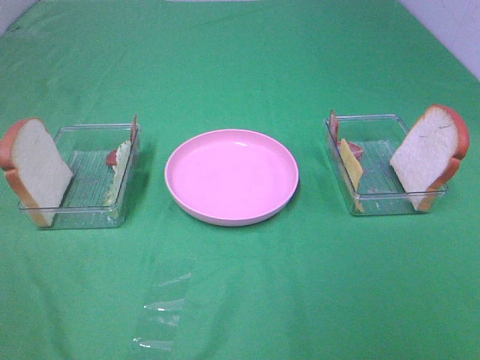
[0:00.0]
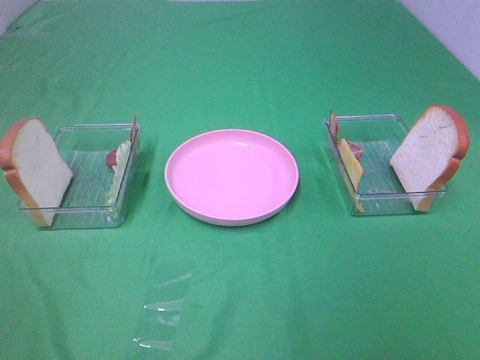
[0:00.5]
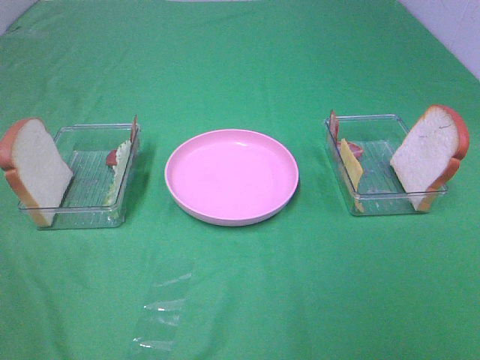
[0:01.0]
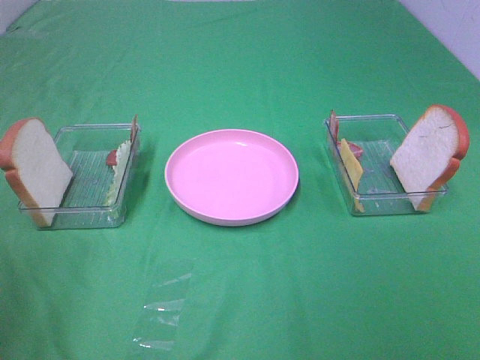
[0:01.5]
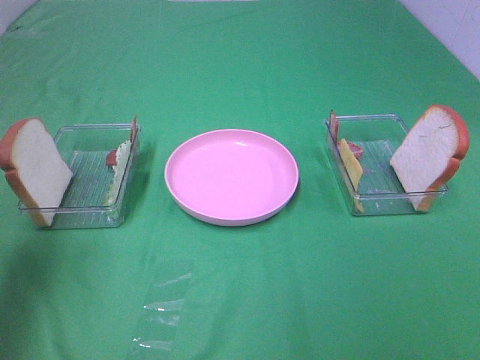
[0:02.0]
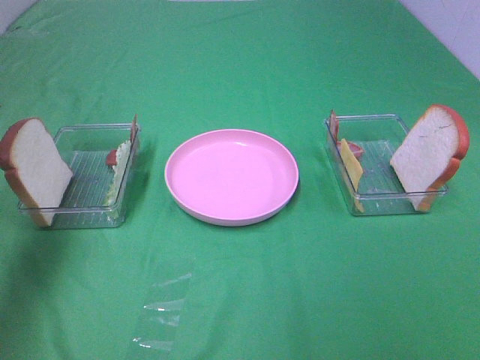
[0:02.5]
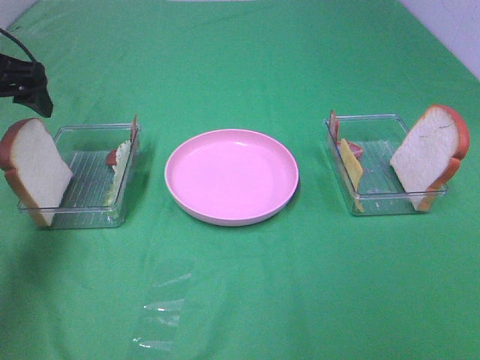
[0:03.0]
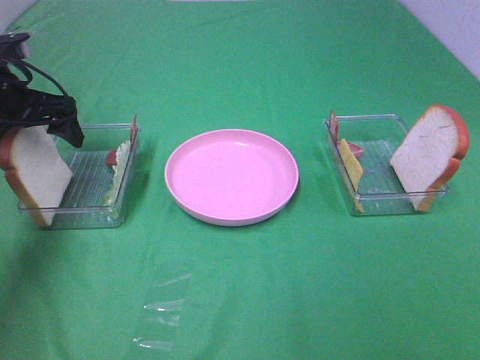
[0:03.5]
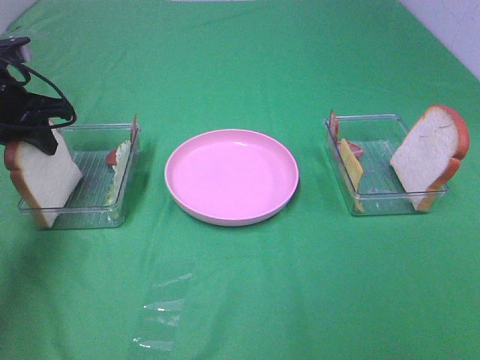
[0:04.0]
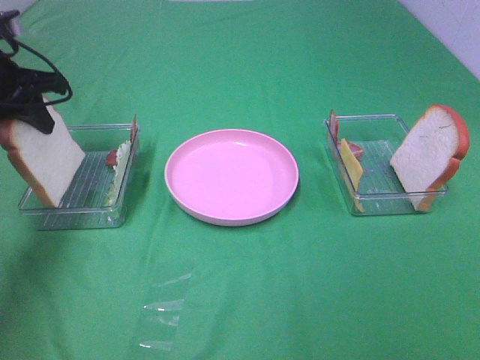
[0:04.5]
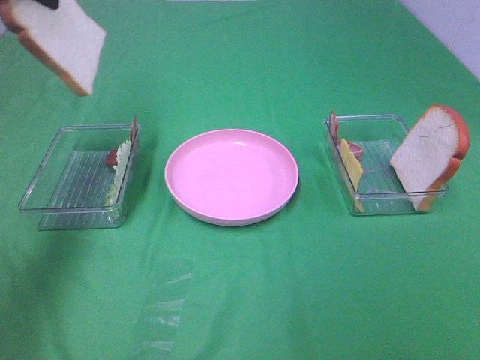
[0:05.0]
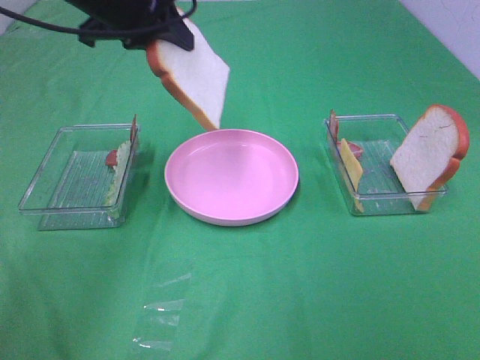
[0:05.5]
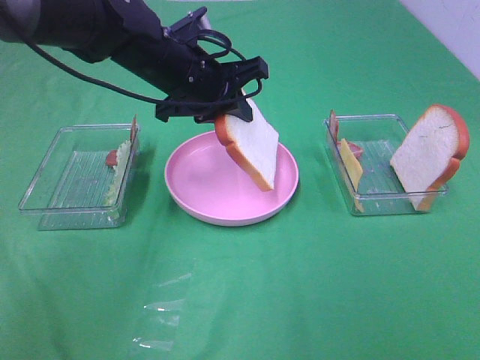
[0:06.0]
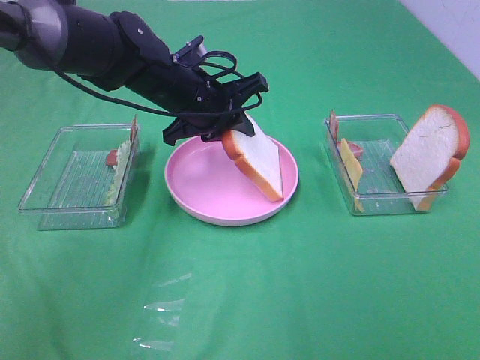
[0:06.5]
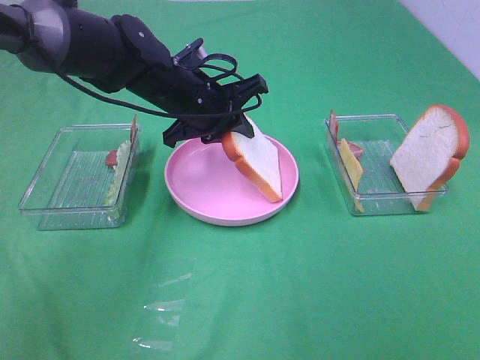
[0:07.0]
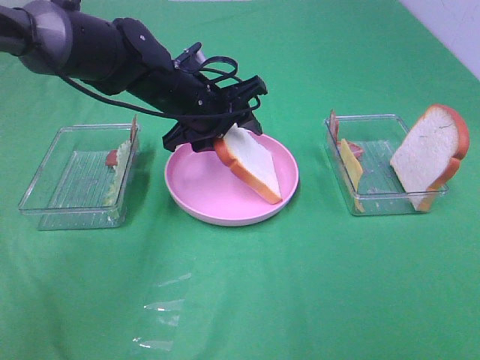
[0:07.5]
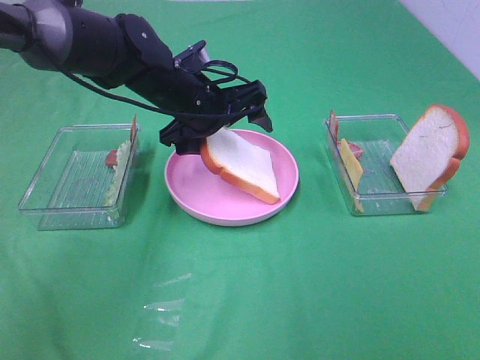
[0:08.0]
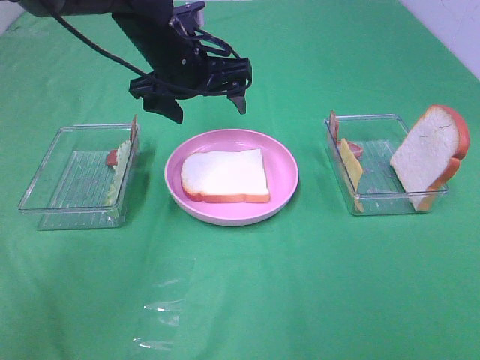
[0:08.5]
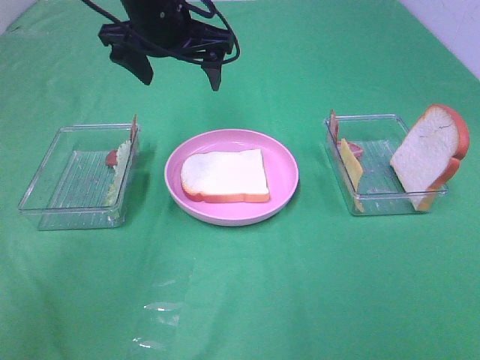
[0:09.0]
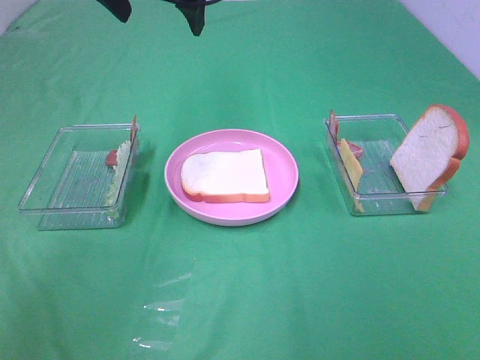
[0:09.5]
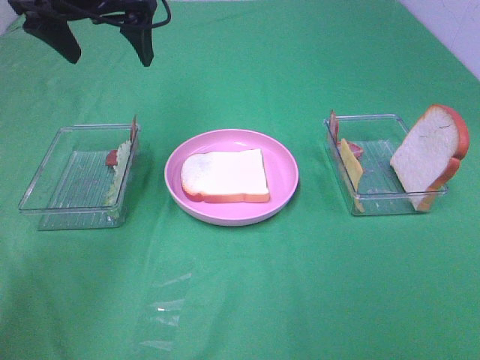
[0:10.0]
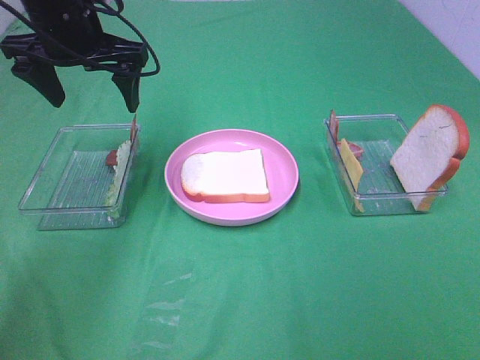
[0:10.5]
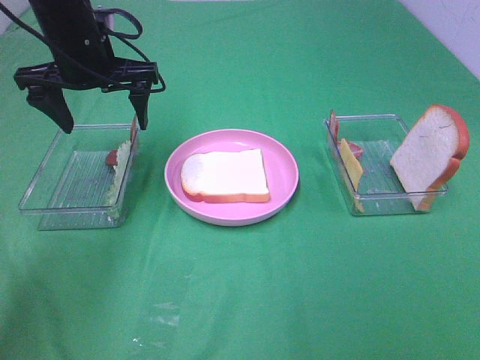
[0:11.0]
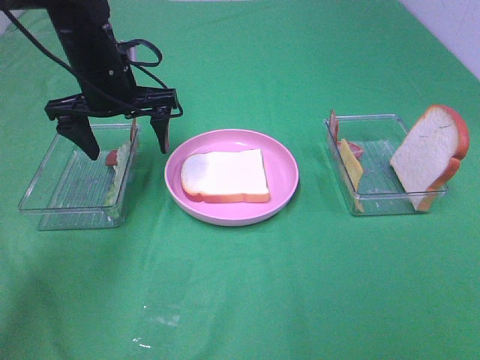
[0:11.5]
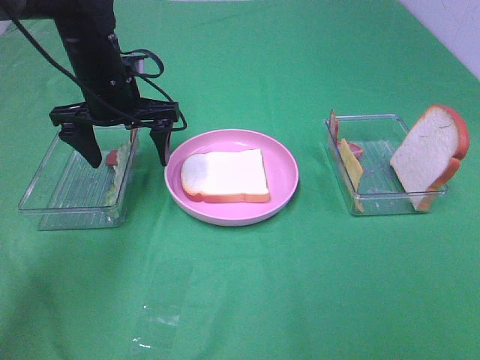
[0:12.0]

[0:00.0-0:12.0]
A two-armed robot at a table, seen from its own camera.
Task of the whole recording: Make sandwiches.
Step, 0:00.0 to 0:04.0: Left hand:grab the bread slice.
Step, 0:04.5 to 0:08.0: Left hand:place the bread slice on the plate.
0:00.0 to 0:02.0: The left gripper goes roughly 20 cm forward.
0:02.0 to 0:04.0: The left gripper heads forward and downward, covering some 25 cm, and closes.
0:04.0 to 0:06.0: The left gripper moves to the right, some 20 cm.
0:06.0 to 0:08.0: The left gripper opens up.
0:08.0 to 0:10.0: The left gripper goes some 20 cm upward and to the left.
0:10.0 to 0:12.0: The left gripper travels downward by some 15 cm.

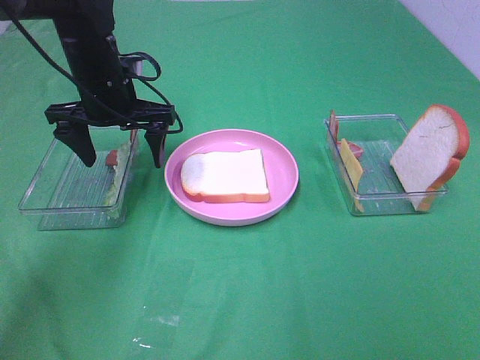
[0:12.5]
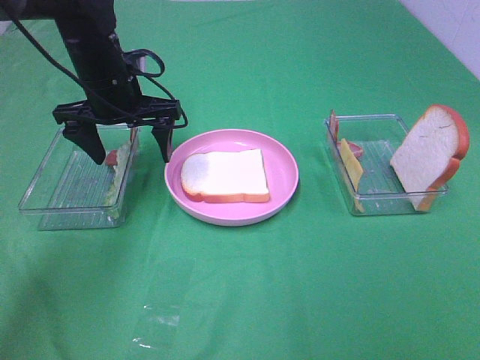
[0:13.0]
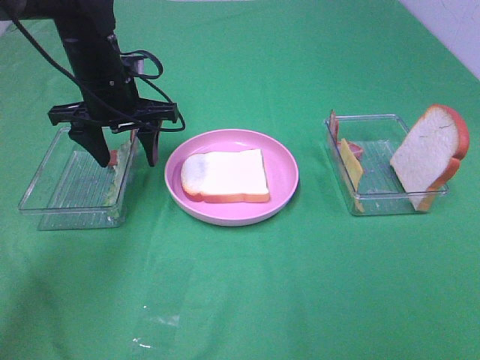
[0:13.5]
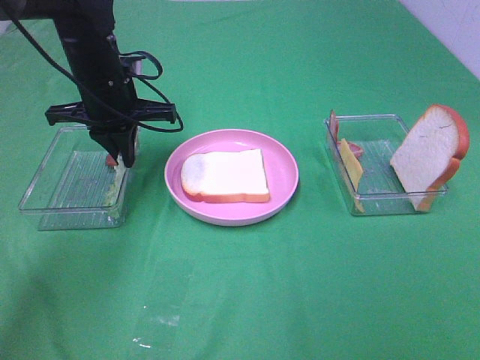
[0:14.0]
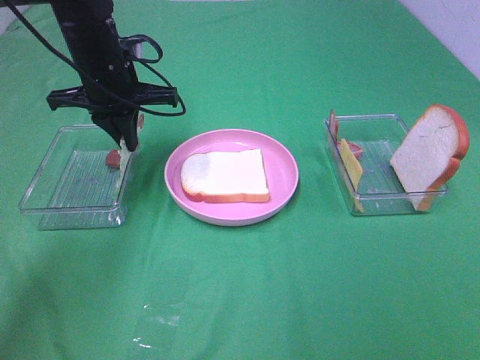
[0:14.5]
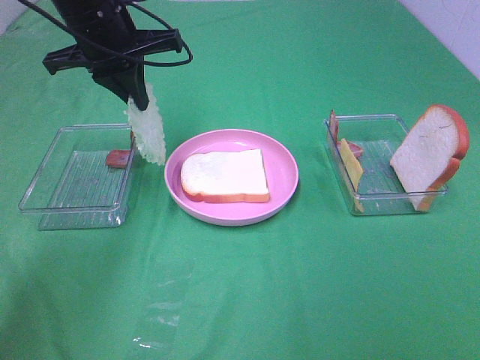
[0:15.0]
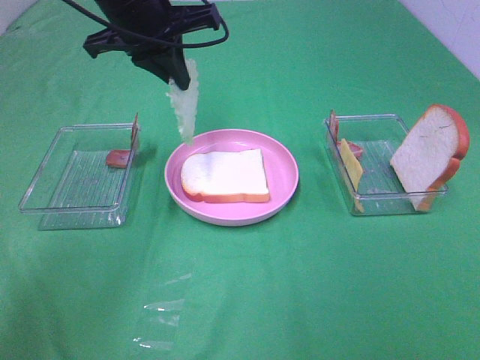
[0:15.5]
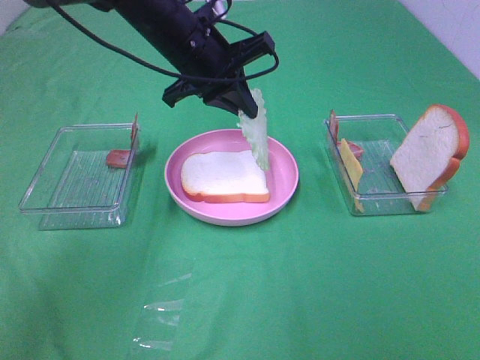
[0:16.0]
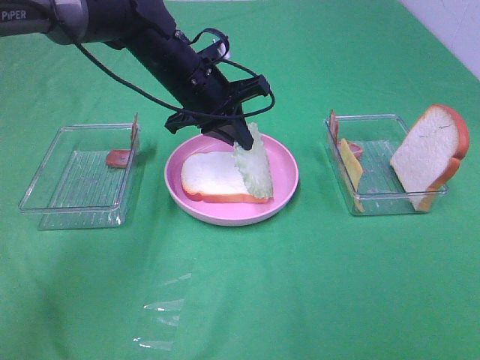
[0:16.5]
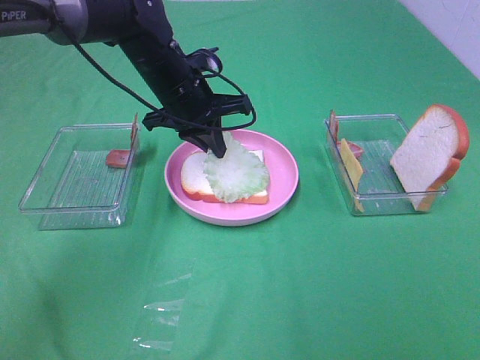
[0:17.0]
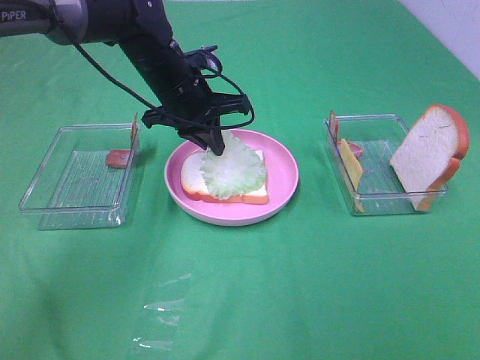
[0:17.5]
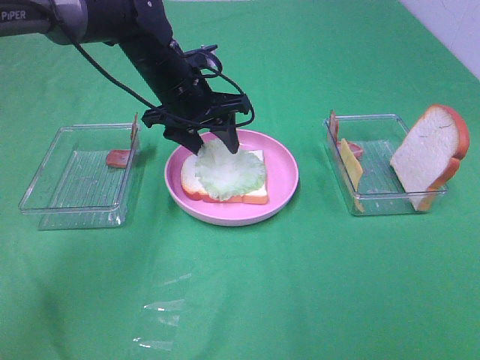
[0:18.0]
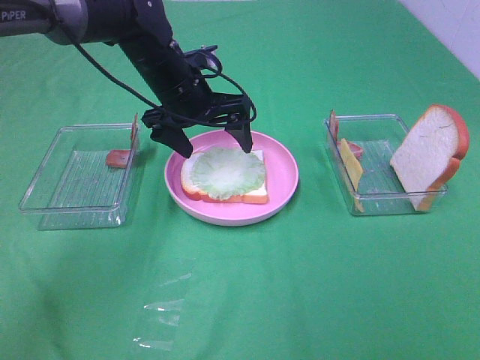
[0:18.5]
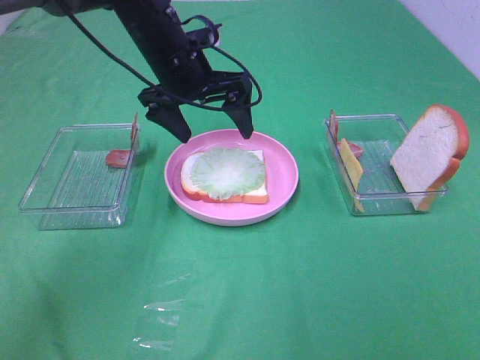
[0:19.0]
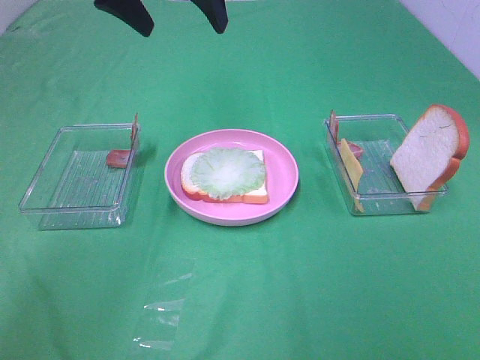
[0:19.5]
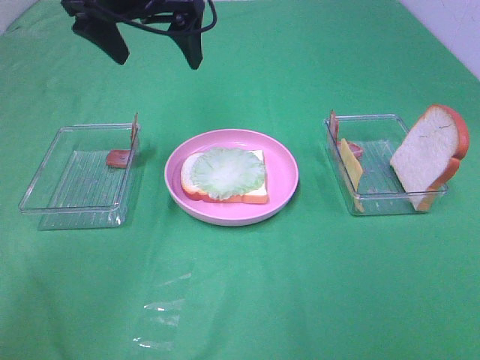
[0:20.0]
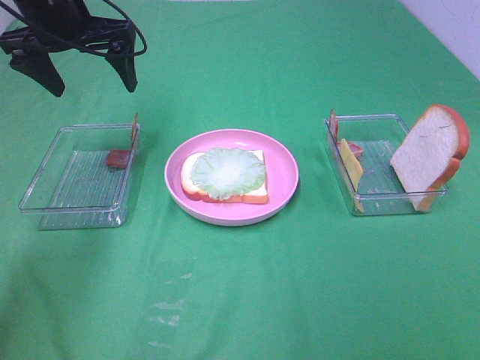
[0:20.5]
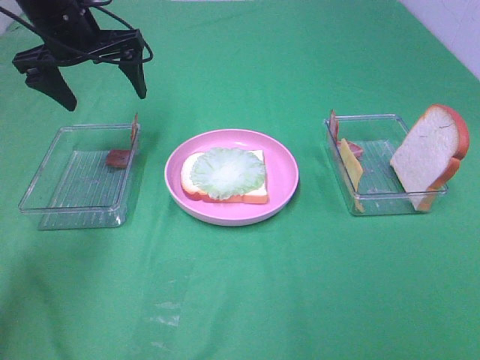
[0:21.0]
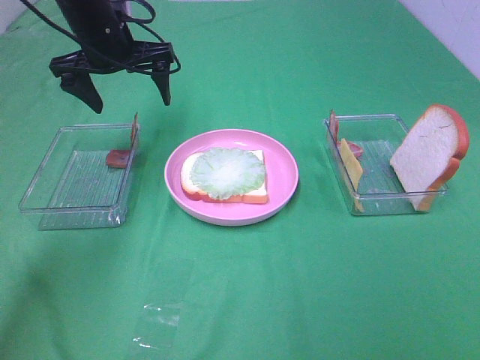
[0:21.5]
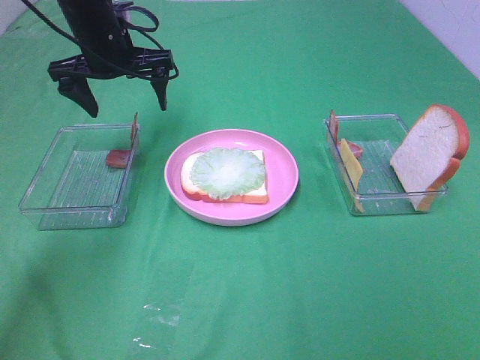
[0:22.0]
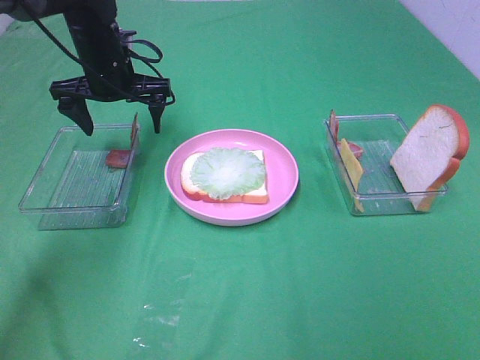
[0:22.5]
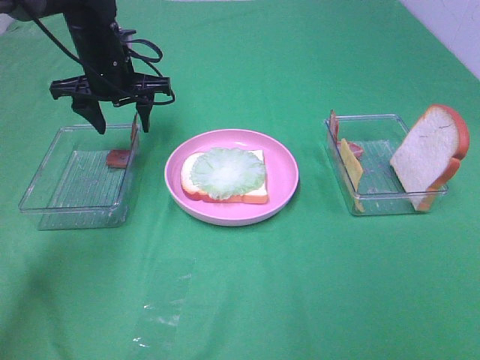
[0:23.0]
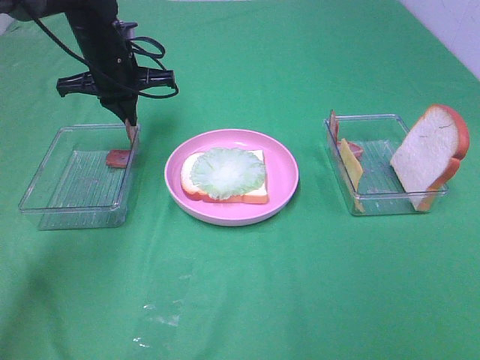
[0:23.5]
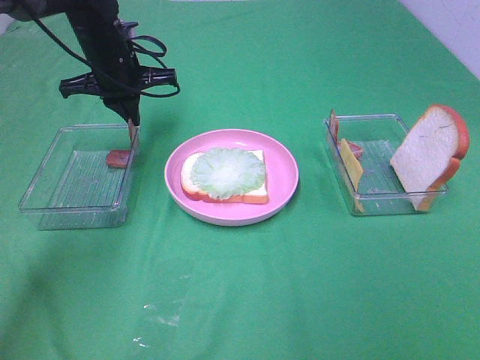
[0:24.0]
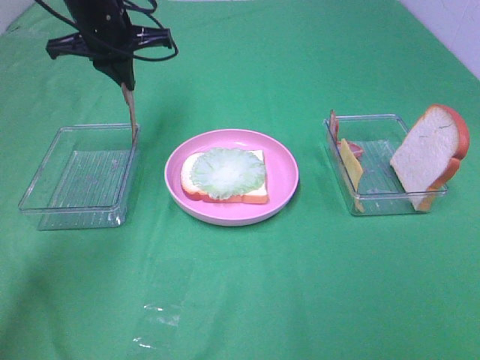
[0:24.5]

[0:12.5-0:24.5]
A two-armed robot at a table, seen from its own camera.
Task of the whole recording: Make sandwiches.
Step, 0:14.5 to 0:18.0: Left hand:place the lettuce slice on the bread slice.
Step, 0:18.5 to 0:23.5: Left hand:grab the bacon.
0:12.5 to 0:14.5: The left gripper closes up.
0:14.5 to 0:16.5: The left gripper shifts approximately 10 cm to the right, and moves some 10 cm upward and comes back.
0:16.5 to 0:18.5: The left gripper opens.
0:18.5 to 0:20.5: The left gripper shifts about 15 cm to the left and upward.
0:20.5 to 0:22.5: The left gripper moves downward, about 10 cm.
0:22.5 to 0:24.5: The left gripper heads upward, covering approximately 5 cm, and closes.

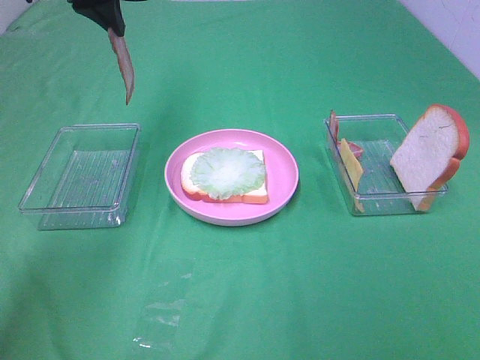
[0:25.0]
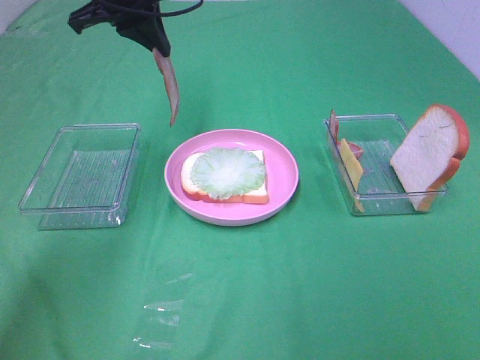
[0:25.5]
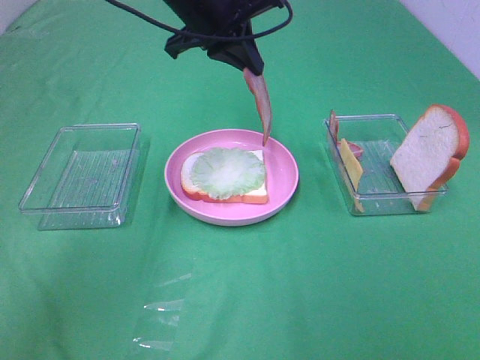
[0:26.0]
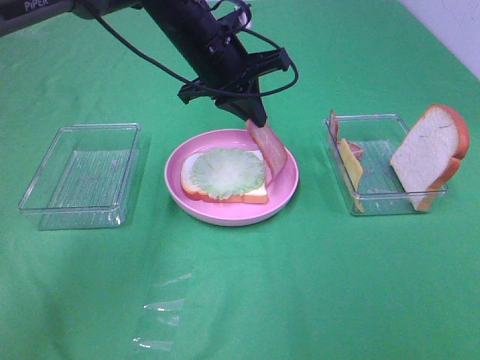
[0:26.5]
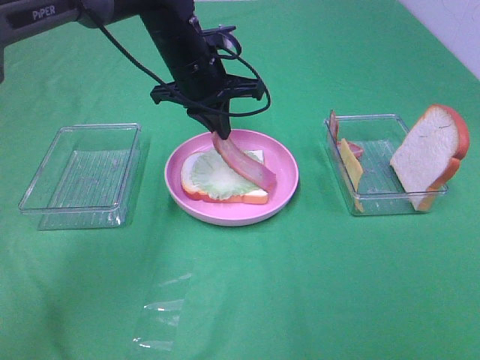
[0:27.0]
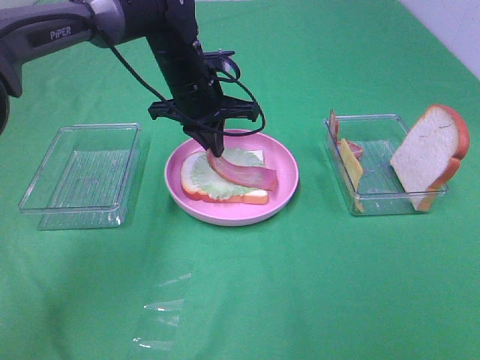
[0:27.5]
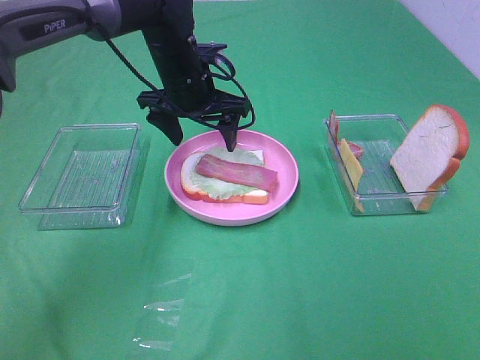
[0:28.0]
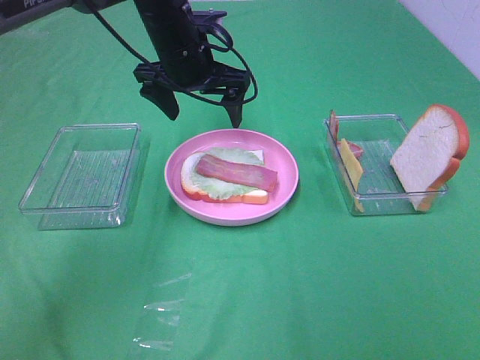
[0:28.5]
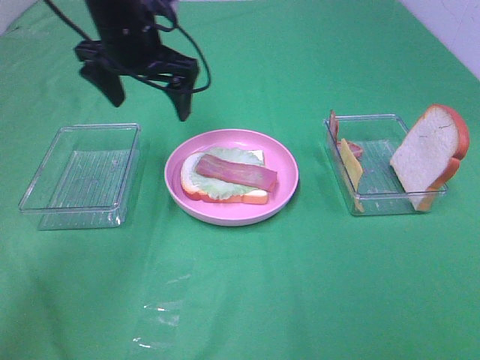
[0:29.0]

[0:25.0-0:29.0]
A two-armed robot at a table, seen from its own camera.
Task of the whole recording: Make sandwiches.
Step, 0:25.0 to 0:27.5: Left hand:place bacon on lettuce slice.
0:25.0 to 0:27.0: The left gripper moves downward and to the right, some 15 cm.
0:27.0 to 0:29.0: The left gripper shifts some 10 cm to the left and upward, and opens up.
